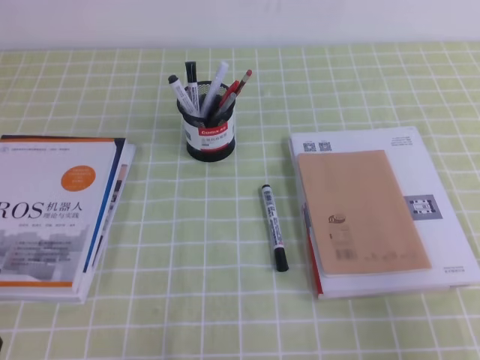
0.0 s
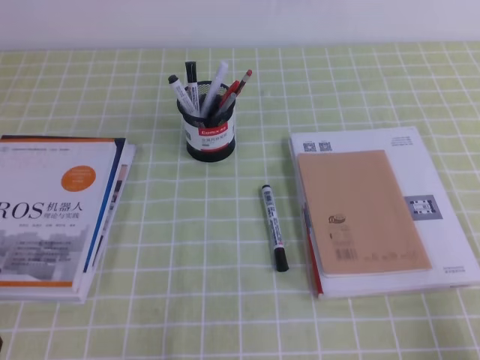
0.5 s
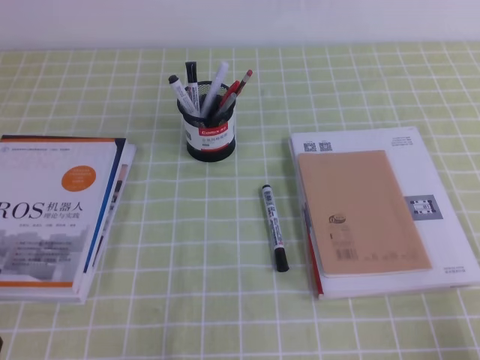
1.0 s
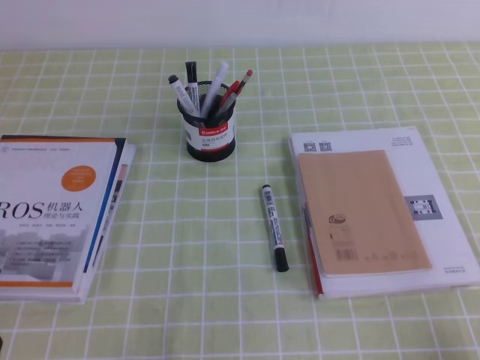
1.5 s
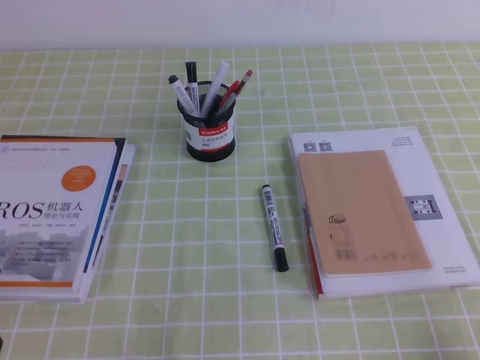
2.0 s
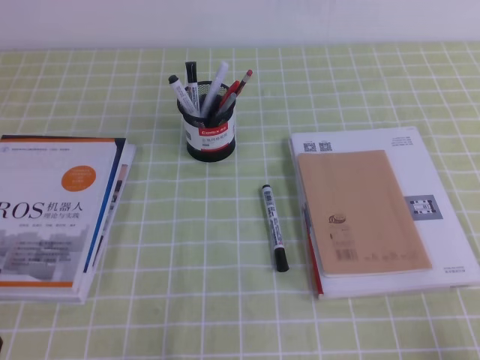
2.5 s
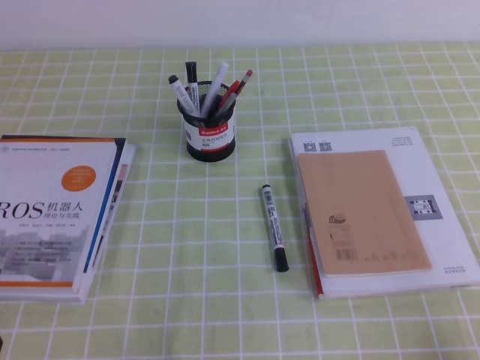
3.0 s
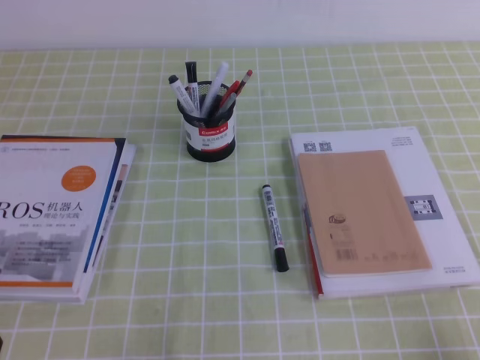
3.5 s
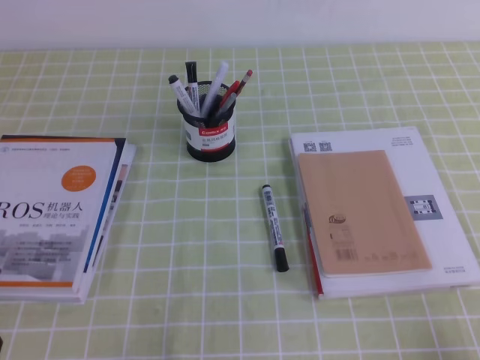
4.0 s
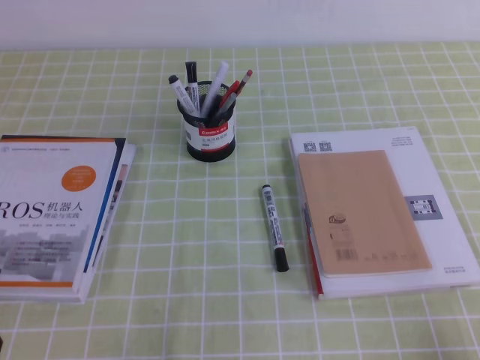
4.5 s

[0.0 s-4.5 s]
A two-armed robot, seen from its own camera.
Step, 0.0 to 4.5 s: Pick up the pen from the pen holder.
2.0 to 4.5 s: Both grippers stay put.
